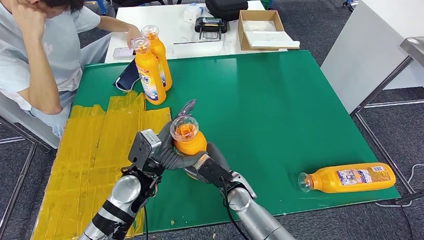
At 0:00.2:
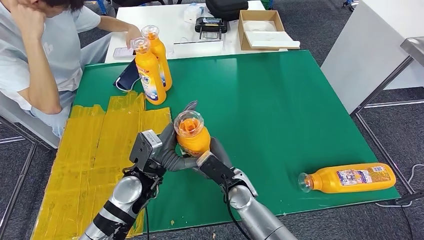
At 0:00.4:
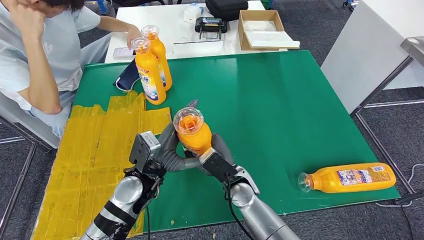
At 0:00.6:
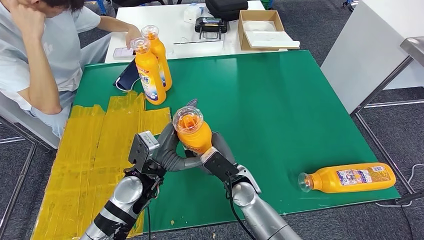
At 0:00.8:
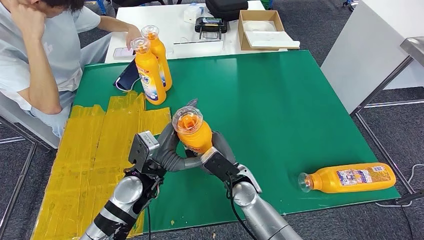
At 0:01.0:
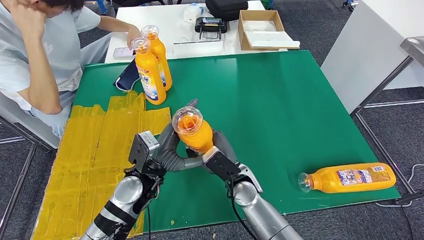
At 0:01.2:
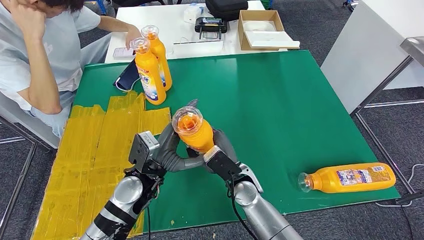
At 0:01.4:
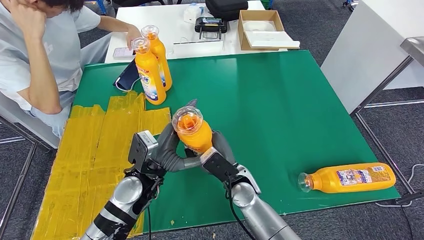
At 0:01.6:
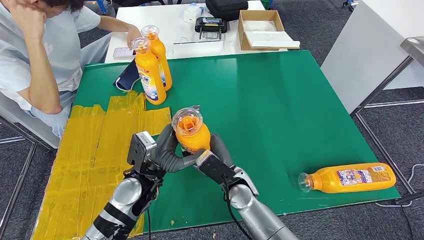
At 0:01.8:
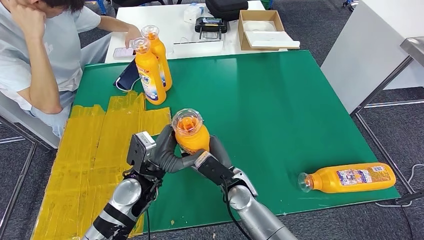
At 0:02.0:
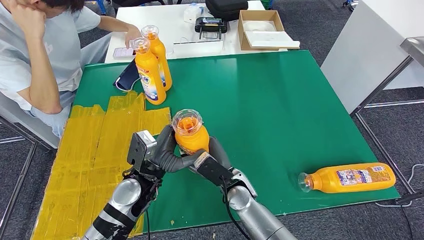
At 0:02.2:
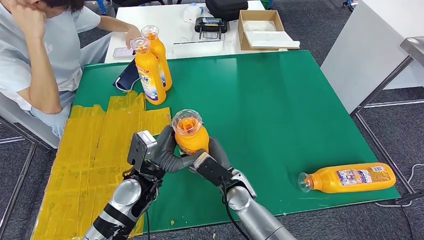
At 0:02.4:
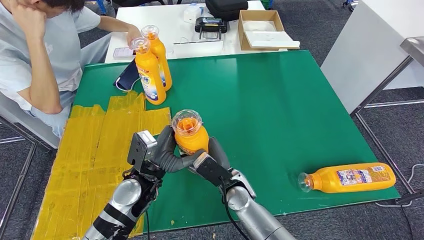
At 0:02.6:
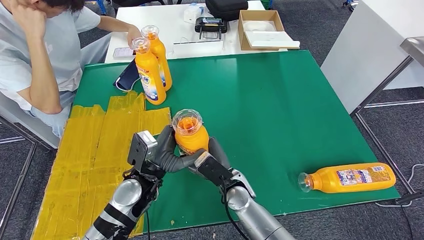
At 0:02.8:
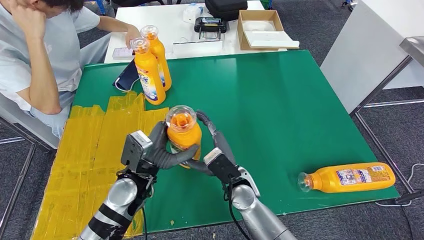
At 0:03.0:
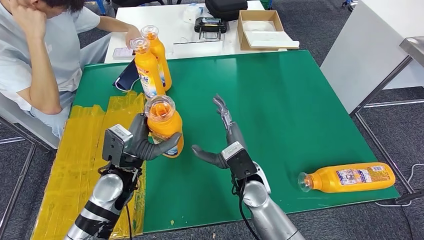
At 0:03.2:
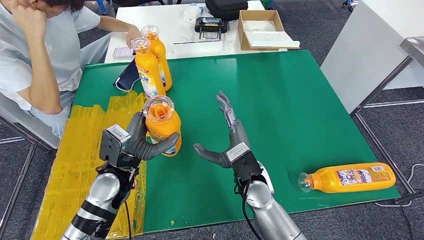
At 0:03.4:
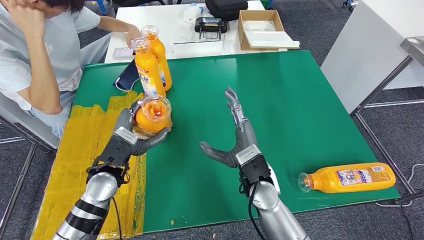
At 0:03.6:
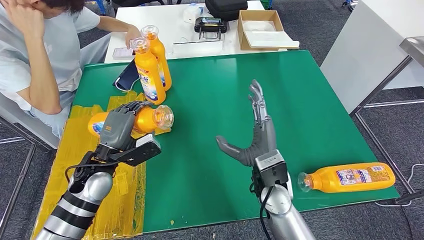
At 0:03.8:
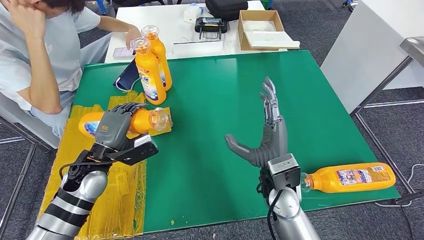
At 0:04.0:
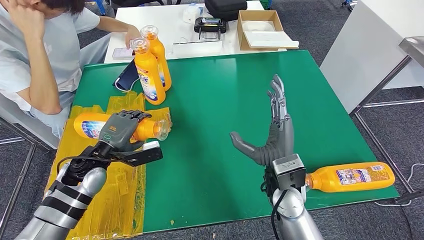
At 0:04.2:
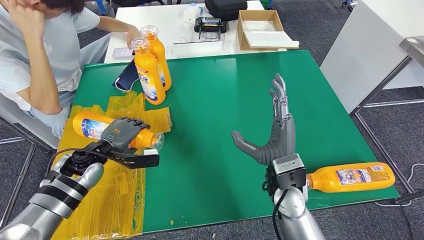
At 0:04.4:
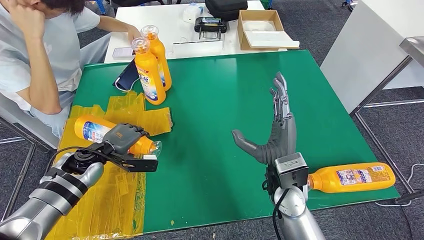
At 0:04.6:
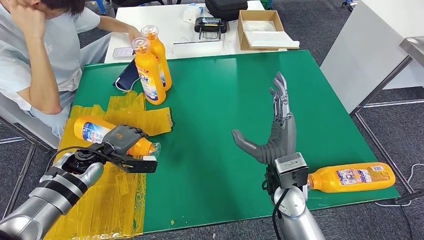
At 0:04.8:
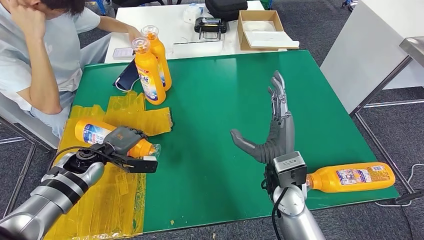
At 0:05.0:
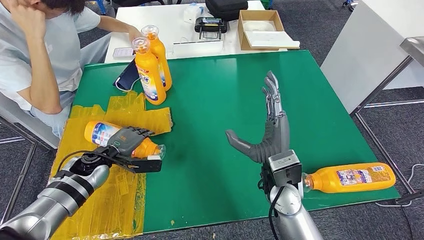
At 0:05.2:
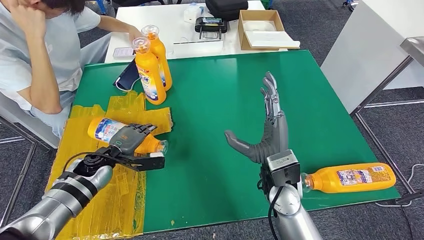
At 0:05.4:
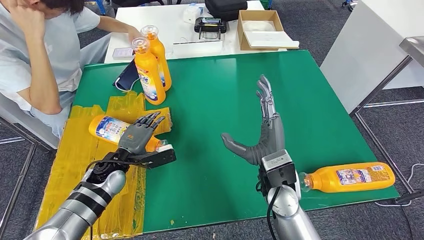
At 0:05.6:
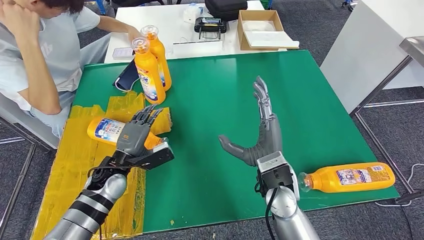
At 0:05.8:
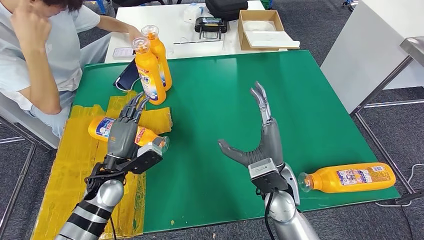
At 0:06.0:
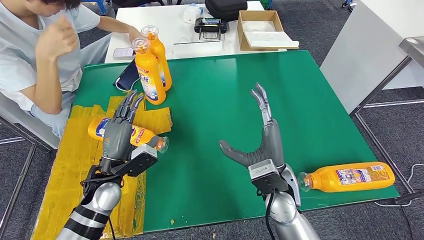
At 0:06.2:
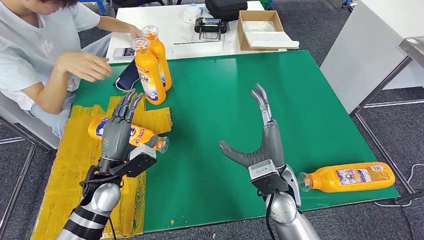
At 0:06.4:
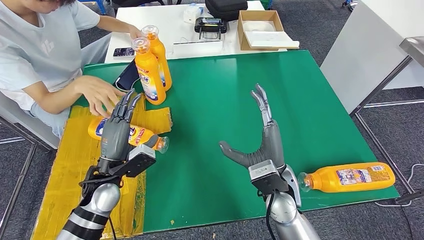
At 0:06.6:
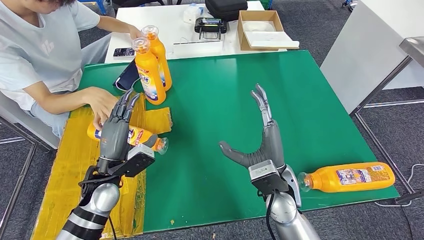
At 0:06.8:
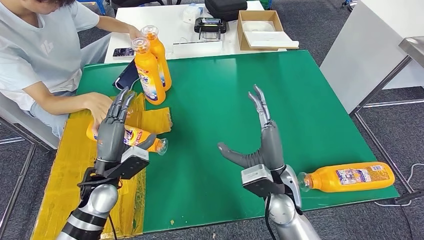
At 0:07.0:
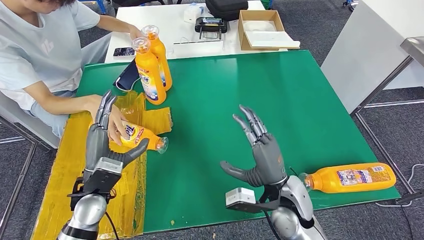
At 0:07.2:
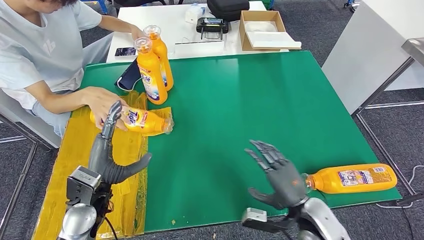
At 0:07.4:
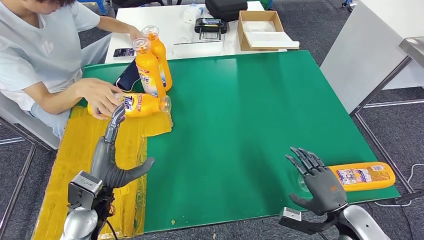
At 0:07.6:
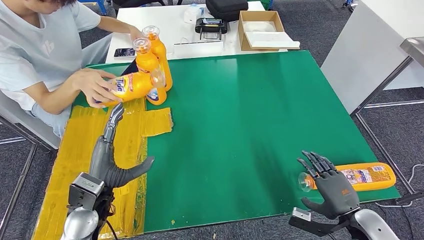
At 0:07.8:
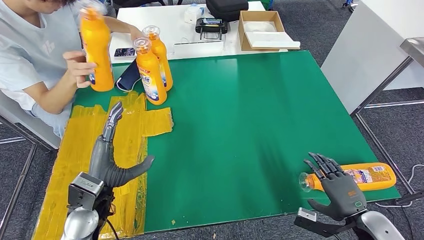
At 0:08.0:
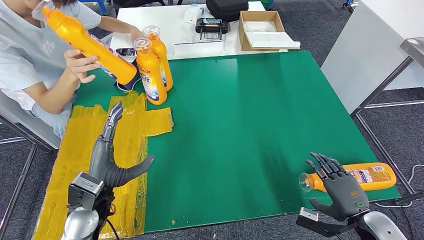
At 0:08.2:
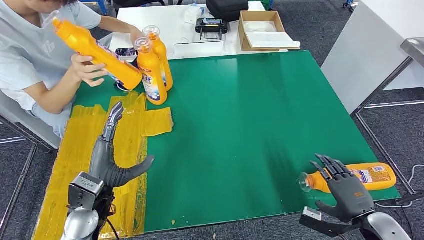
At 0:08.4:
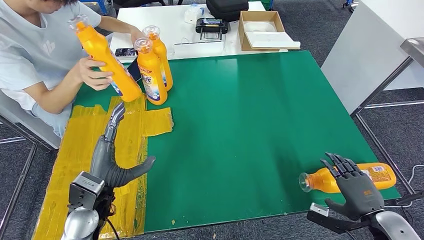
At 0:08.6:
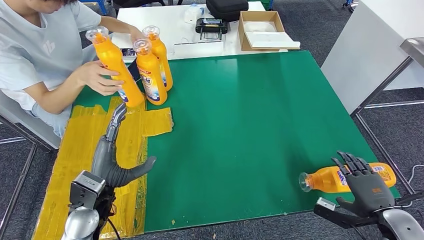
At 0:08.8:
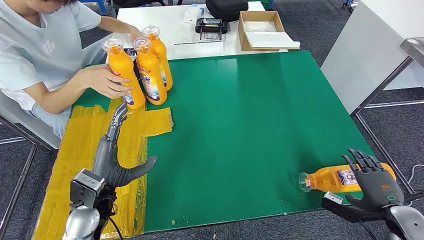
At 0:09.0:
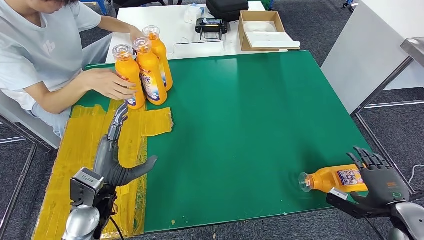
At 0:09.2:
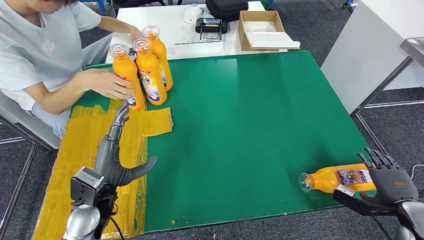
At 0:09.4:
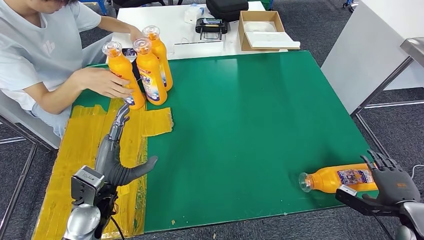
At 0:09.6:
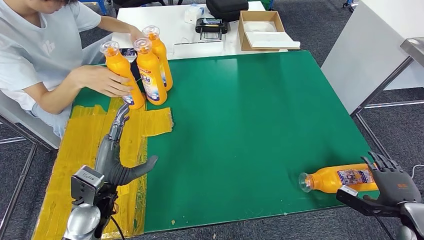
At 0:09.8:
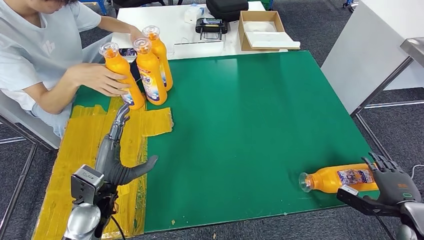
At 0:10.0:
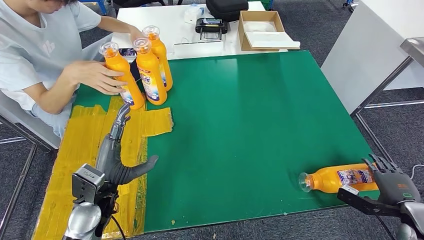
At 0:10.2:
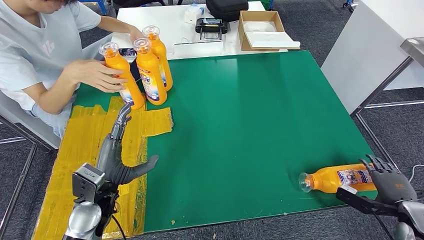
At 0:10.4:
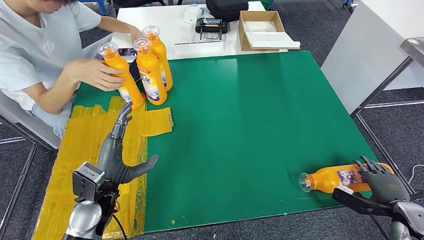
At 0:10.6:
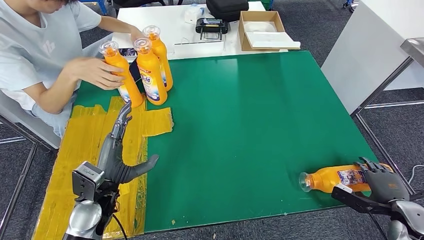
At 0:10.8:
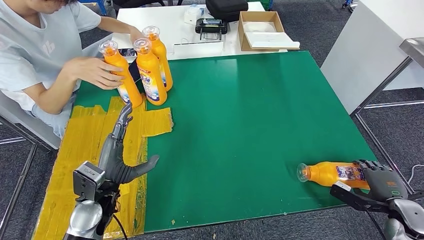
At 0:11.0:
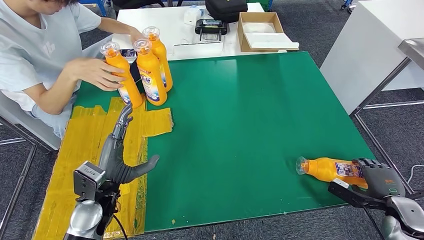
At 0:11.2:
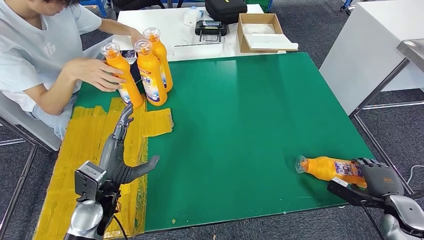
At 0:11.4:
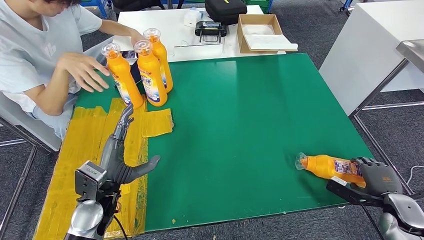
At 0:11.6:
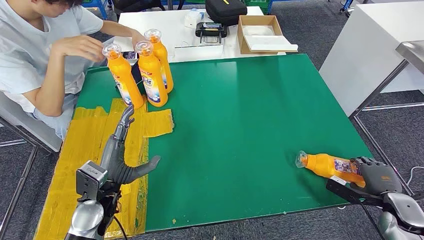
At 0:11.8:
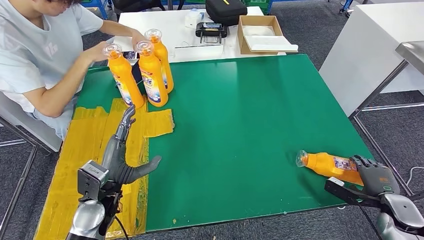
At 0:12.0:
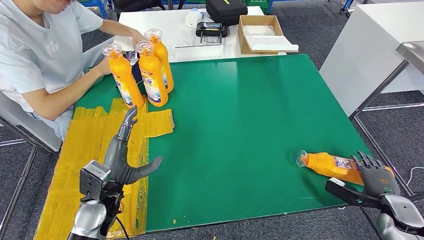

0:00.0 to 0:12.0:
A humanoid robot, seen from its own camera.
Step, 0:00.0 to 0:06.6: Flip the fast-moving consumer goods bottle to the front side.
0:00.0 to 0:01.6: The hands stay close to where they were, moving slightly.
0:01.6 to 0:03.0: The left hand shifts by approximately 5 cm.
0:03.0 to 0:04.4: The right hand shifts approximately 10 cm to the right and upward. Meanwhile the left hand travels to the left and forward by approximately 15 cm.
0:04.4 to 0:06.0: The left hand heads to the right and backward, covering about 10 cm.
0:07.6 to 0:09.0: The right hand moves to the right, some 10 cm.
0:09.0 to 0:10.4: The right hand ends up roughly 5 cm from where it was.

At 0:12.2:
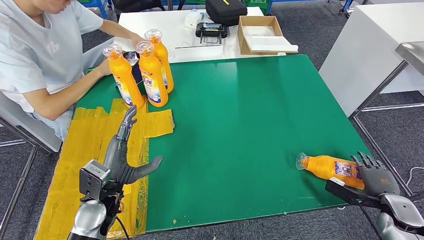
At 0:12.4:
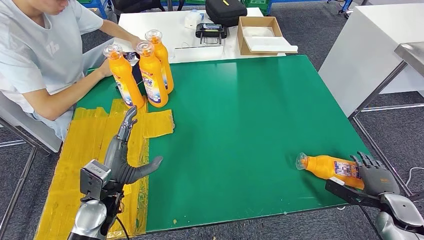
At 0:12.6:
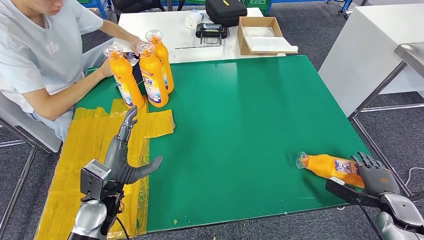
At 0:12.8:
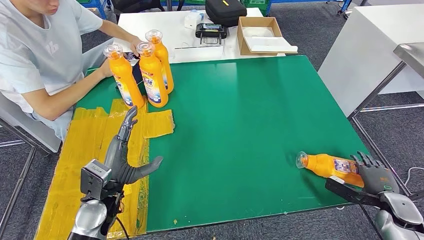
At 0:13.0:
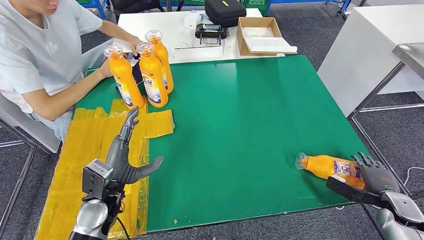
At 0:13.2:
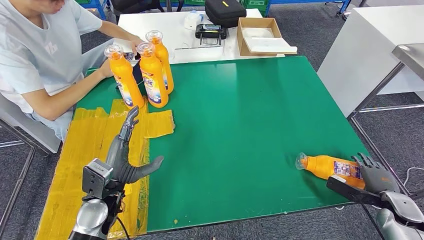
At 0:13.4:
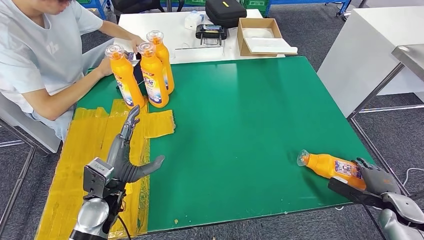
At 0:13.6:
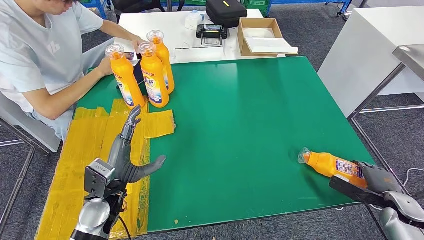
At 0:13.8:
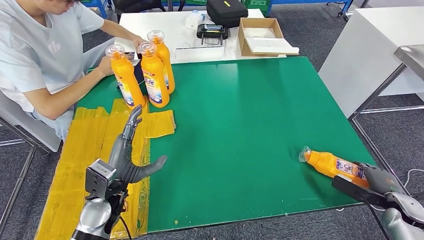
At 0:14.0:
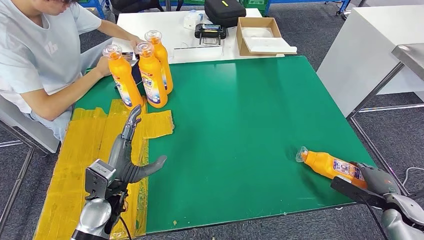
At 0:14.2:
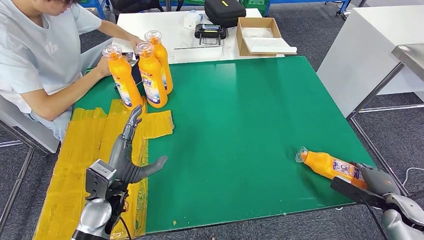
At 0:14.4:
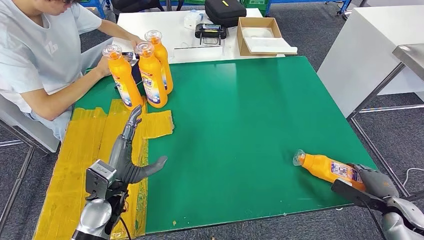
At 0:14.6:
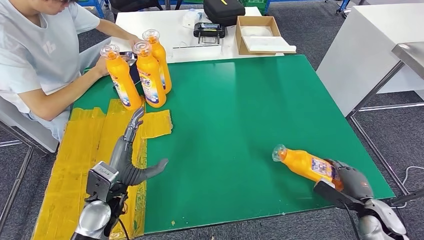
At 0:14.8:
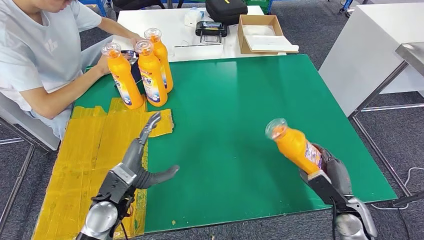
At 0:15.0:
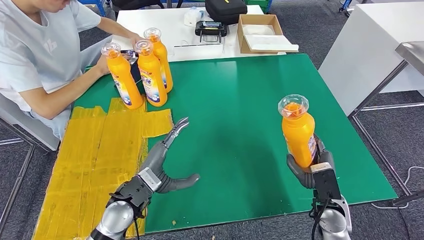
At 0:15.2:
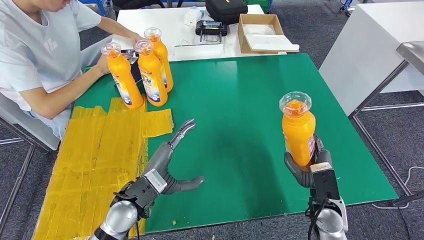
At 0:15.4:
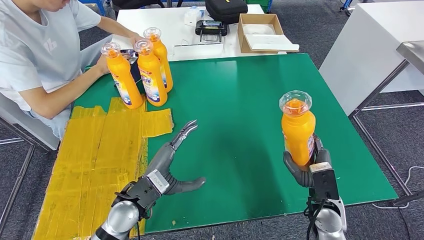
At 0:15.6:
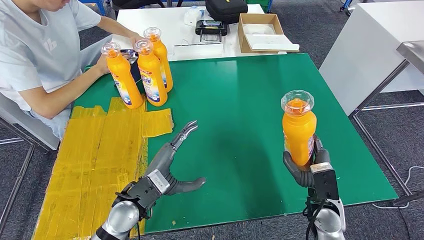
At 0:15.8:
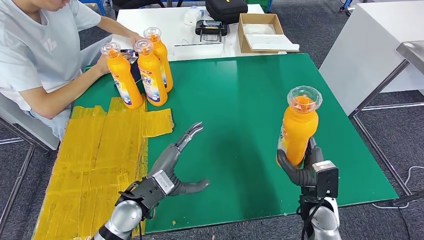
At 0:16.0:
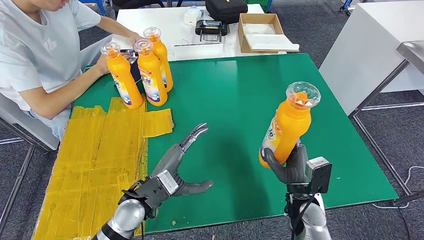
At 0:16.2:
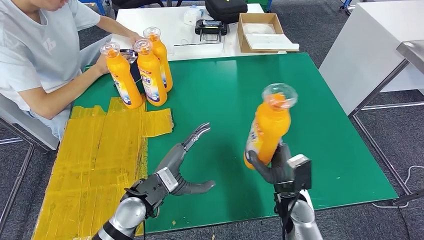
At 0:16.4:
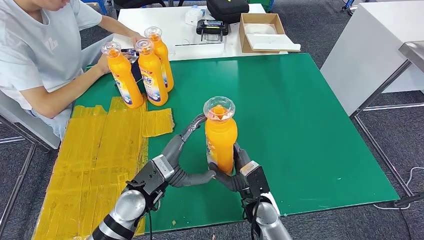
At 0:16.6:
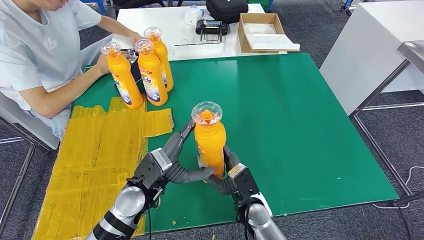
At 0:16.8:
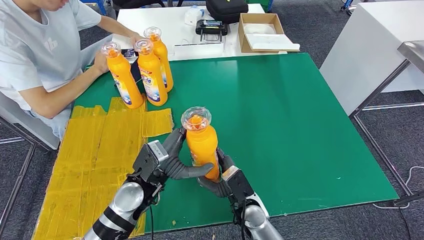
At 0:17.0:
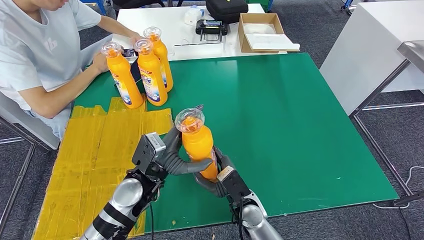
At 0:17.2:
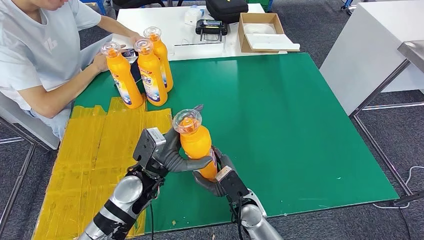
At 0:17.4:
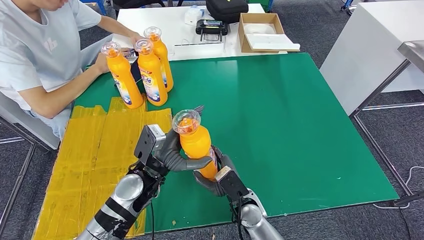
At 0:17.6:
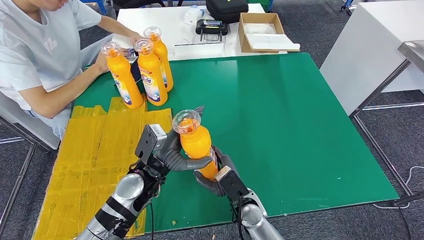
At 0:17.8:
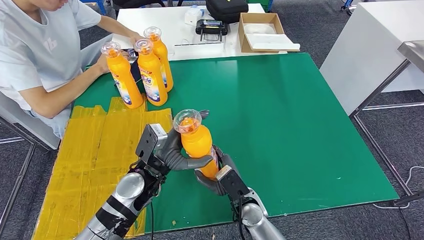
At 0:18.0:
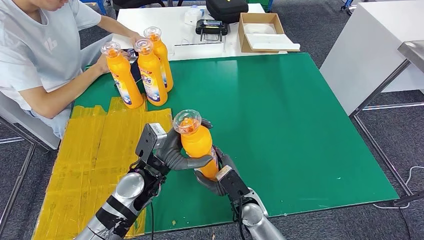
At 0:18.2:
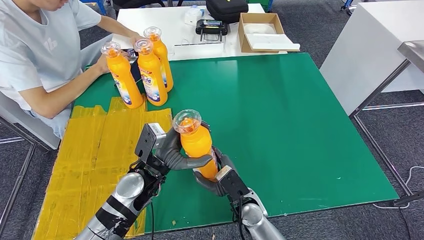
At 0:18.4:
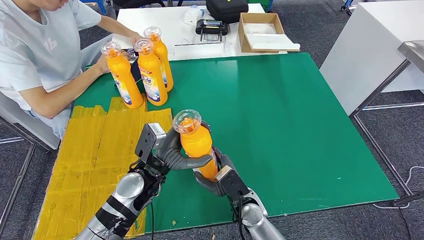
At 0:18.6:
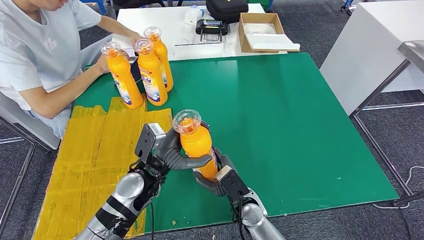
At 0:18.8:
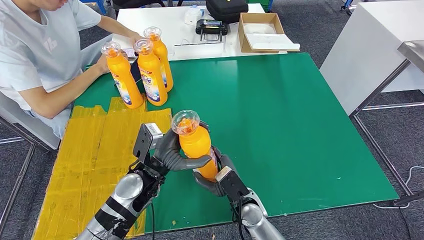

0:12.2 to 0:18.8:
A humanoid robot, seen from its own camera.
Step, 0:12.2 to 0:15.0: Pick up the fast-moving consumer goods bottle from the table.
0:12.2 to 0:13.8: The hands make only small movements.
0:15.4 to 0:17.2: The right hand shifts about 20 cm to the left.
0:17.2 to 0:18.8: The two hands keep their place.
